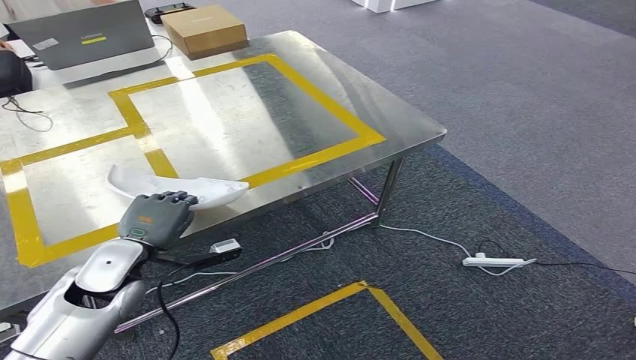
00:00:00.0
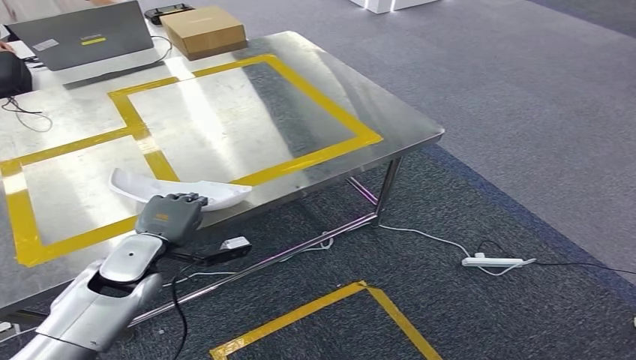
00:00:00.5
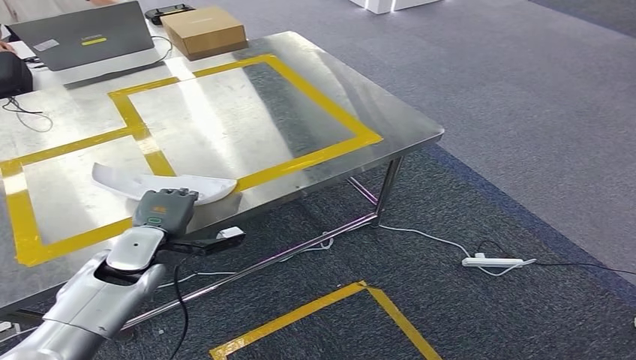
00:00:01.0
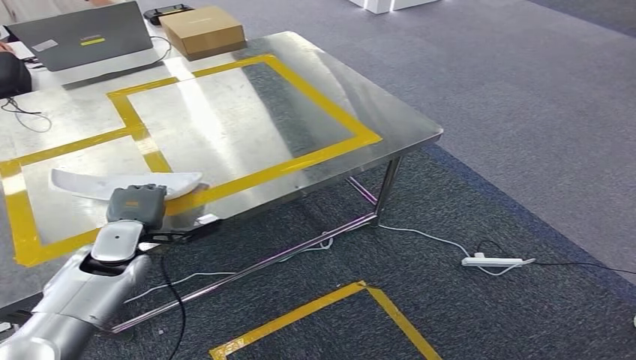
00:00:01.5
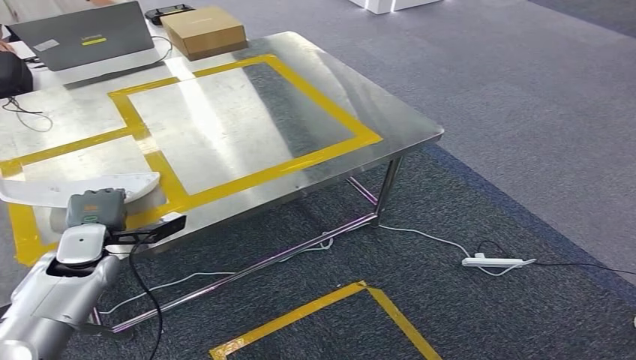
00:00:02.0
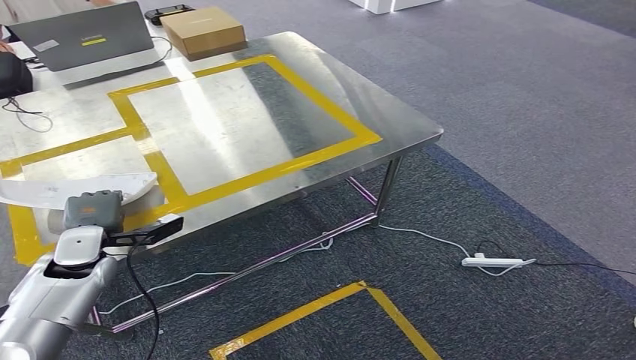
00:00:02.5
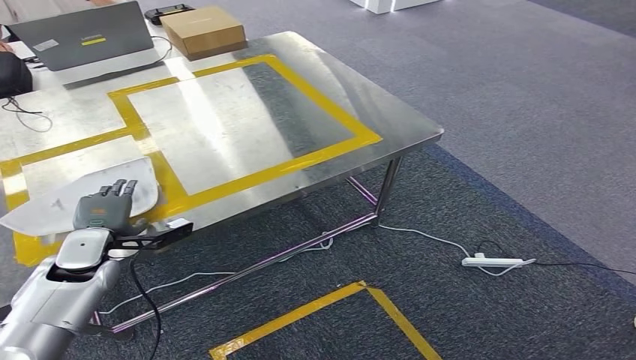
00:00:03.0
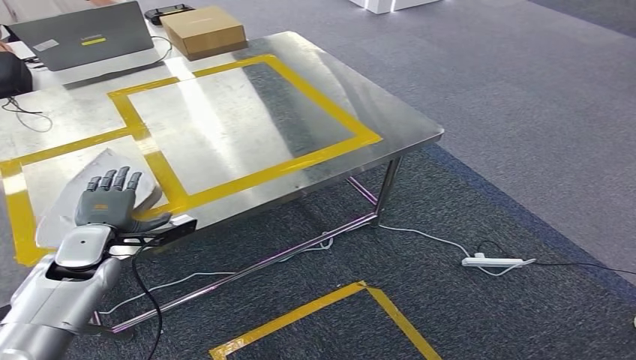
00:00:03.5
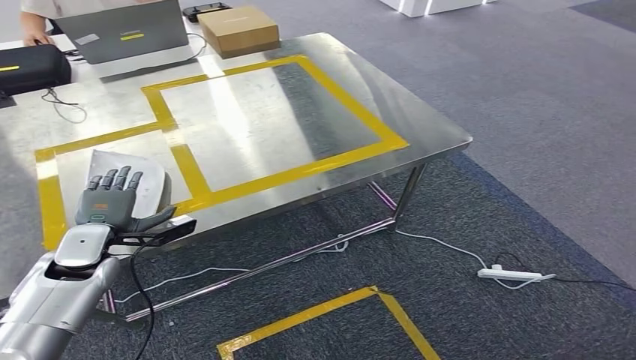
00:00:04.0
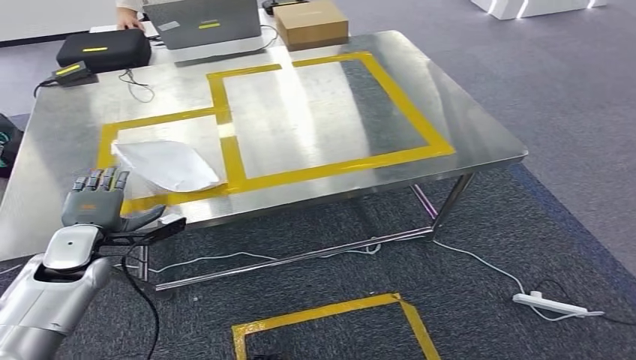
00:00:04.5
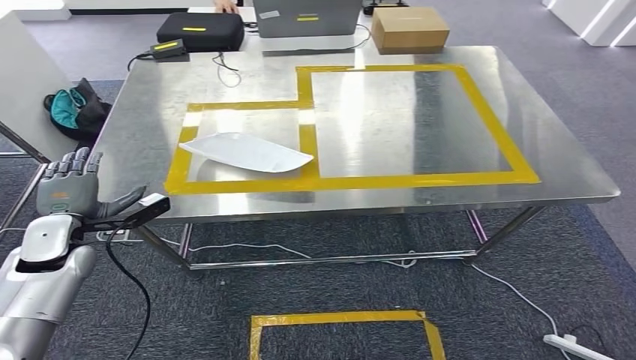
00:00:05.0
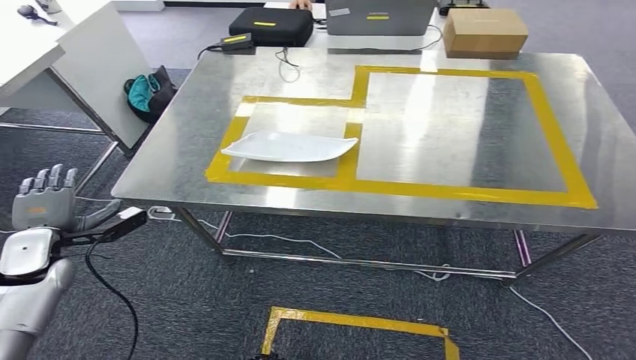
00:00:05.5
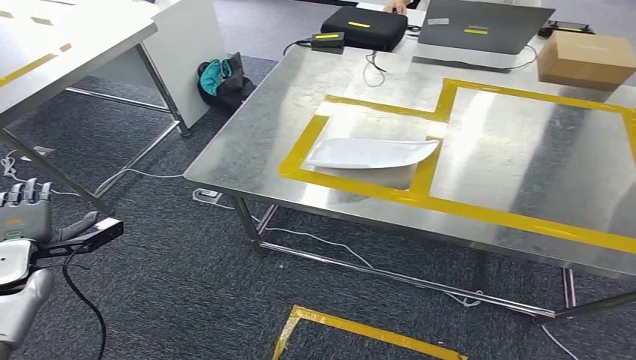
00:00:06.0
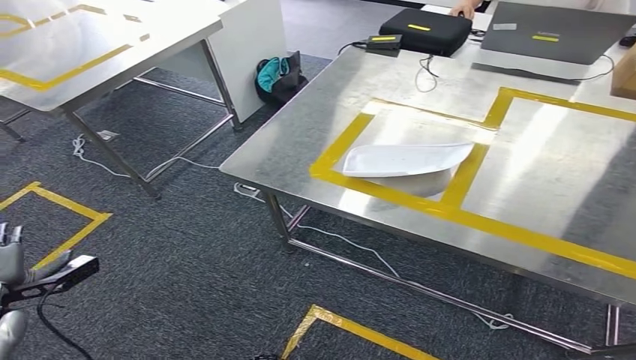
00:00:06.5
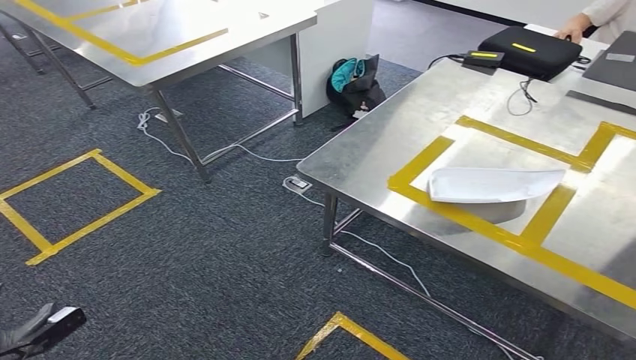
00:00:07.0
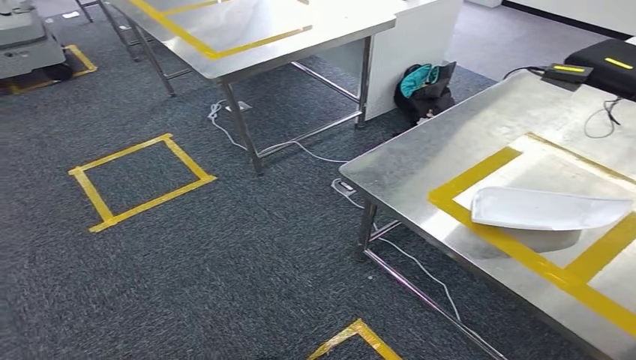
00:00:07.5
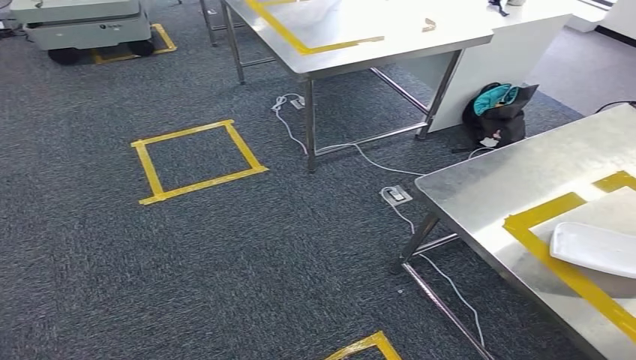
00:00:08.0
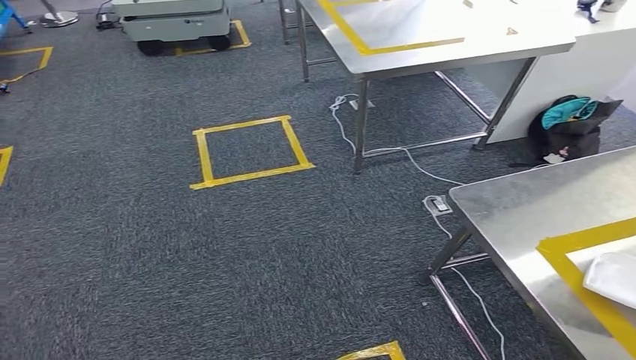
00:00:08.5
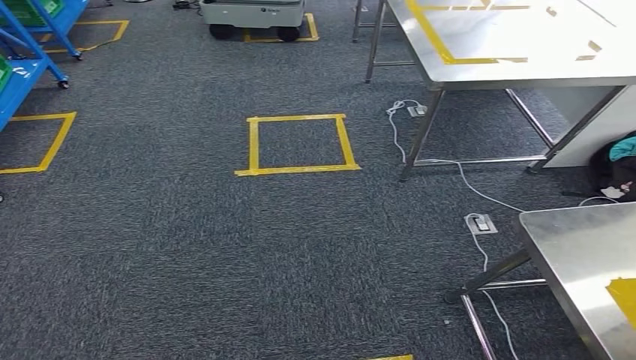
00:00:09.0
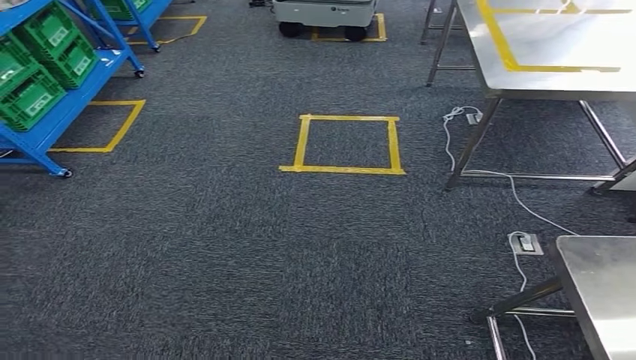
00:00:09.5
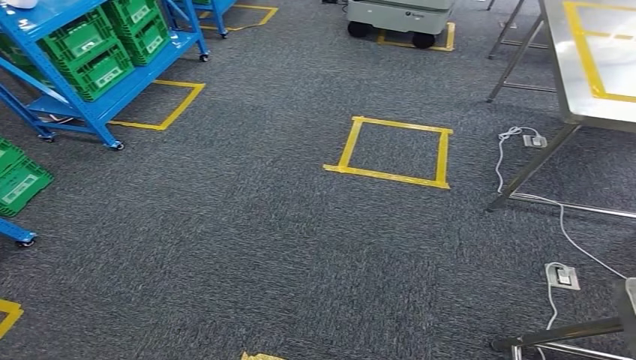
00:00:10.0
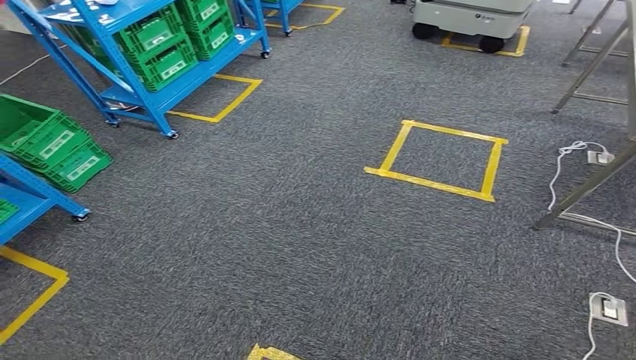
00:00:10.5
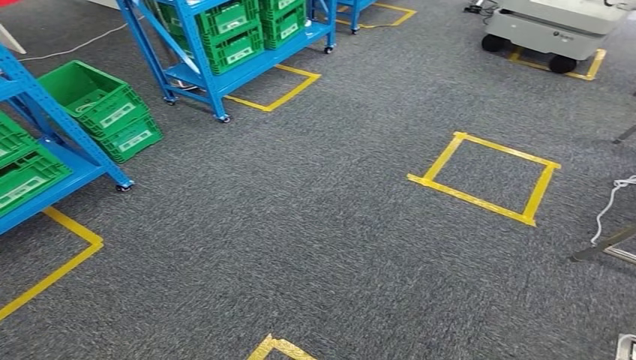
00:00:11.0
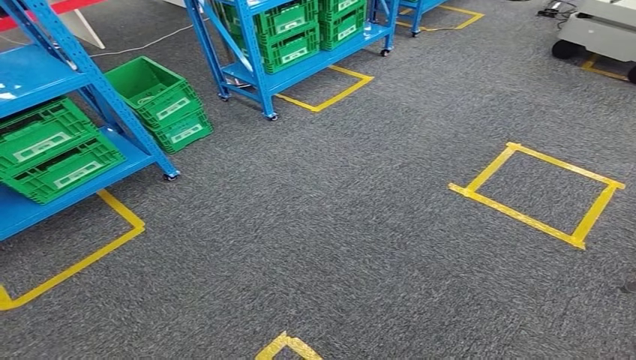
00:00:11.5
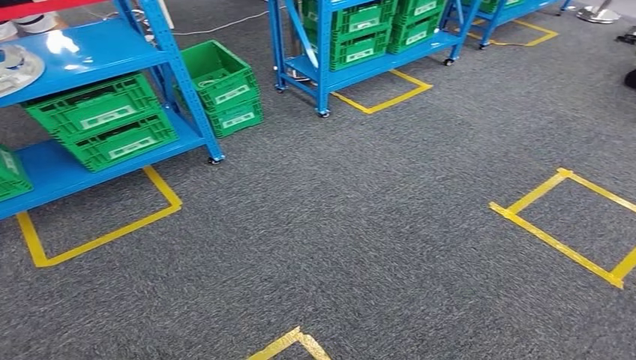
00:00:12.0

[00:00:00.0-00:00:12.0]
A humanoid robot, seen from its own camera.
Step, 00:00:00.5 to 00:00:05.0: Insert the small parts into the corresponding slots on the workbench.
00:00:00.0 to 00:00:02.0: The left hand heads to the left and forward, covering some 10 cm.

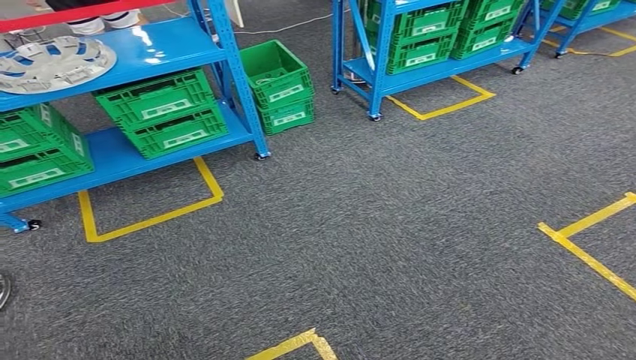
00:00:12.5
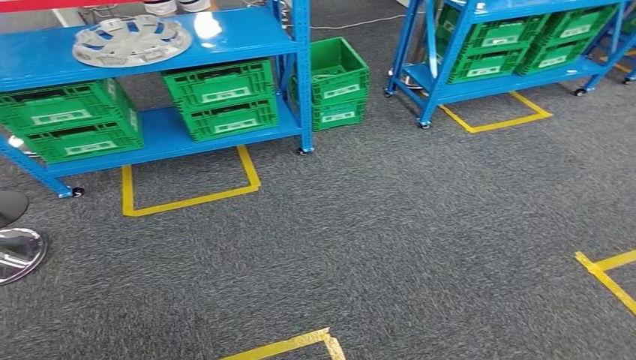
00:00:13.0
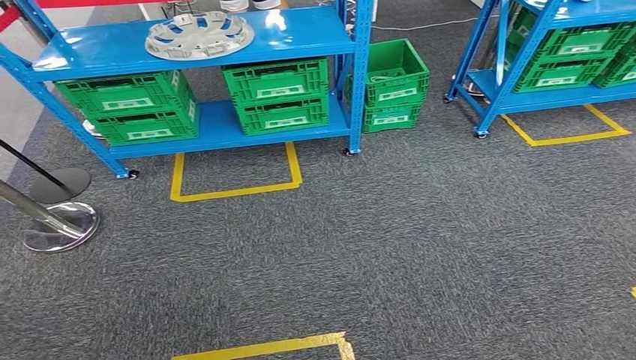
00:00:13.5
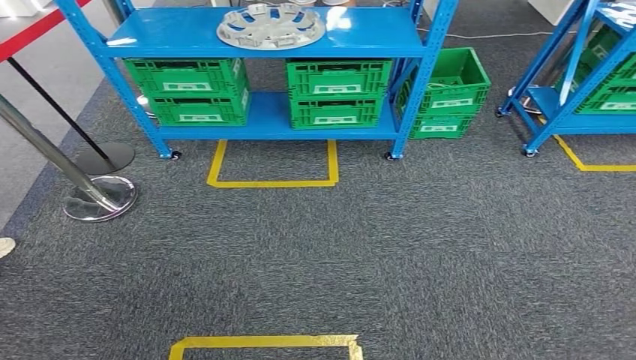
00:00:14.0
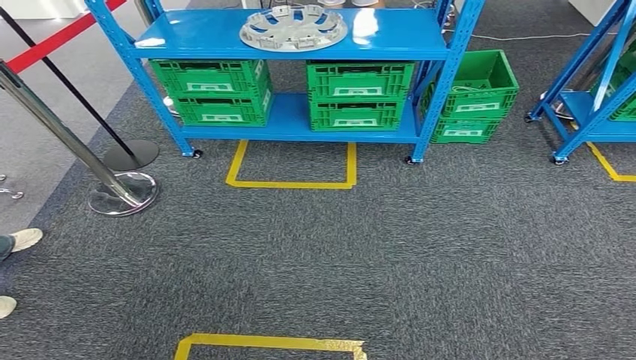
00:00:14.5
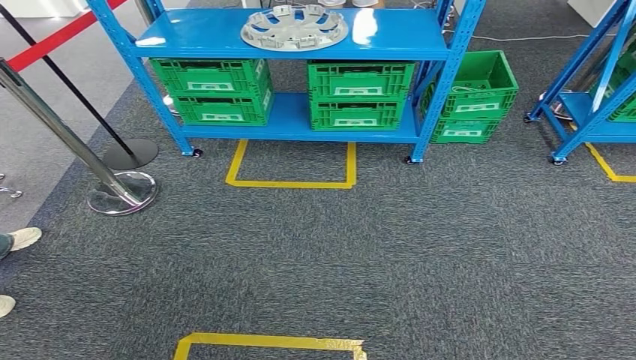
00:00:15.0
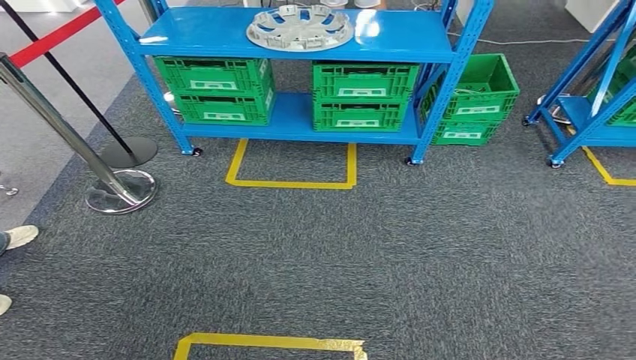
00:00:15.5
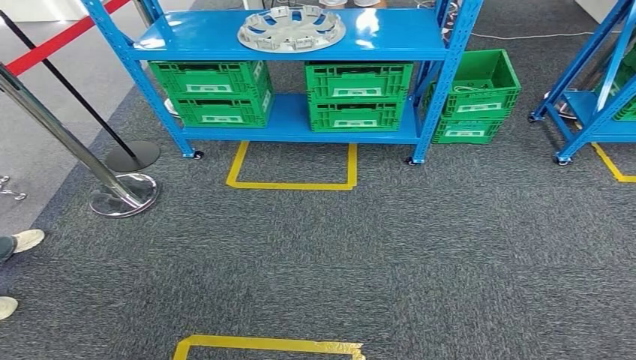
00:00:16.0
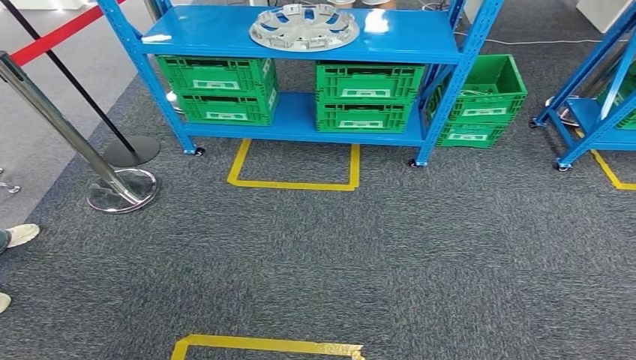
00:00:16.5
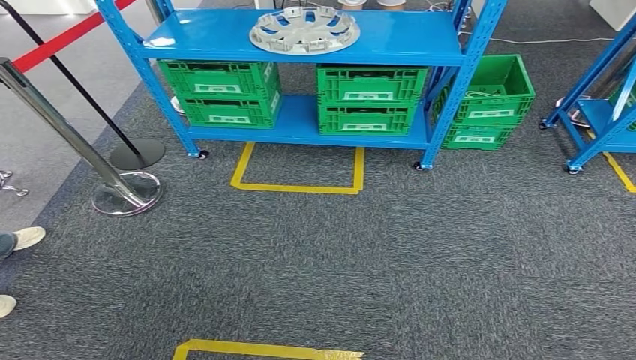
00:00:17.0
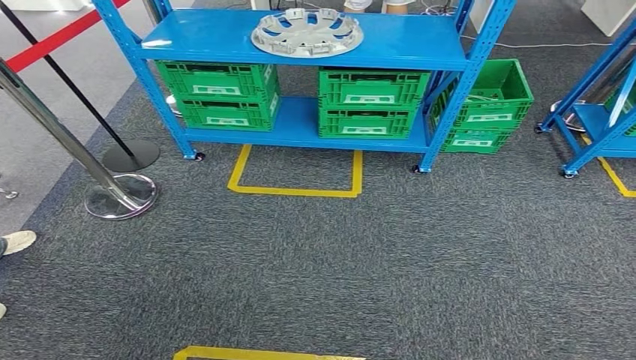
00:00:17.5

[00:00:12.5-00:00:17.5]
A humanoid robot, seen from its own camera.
Step, 00:00:12.5 to 00:00:17.5: Return to the initial position at the workbench.
00:00:15.0 to 00:00:17.5: The hands stay close to where they were, moving slightly.
